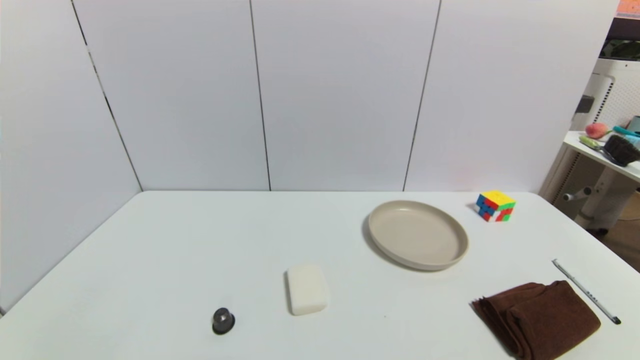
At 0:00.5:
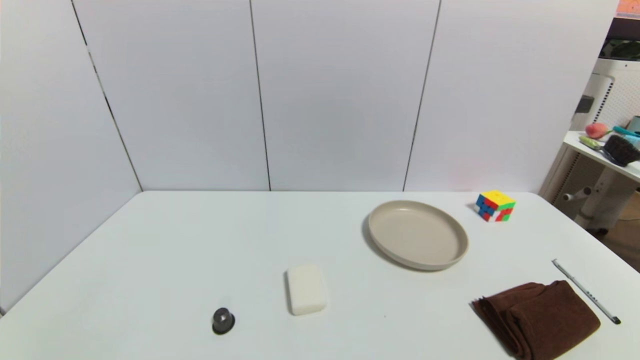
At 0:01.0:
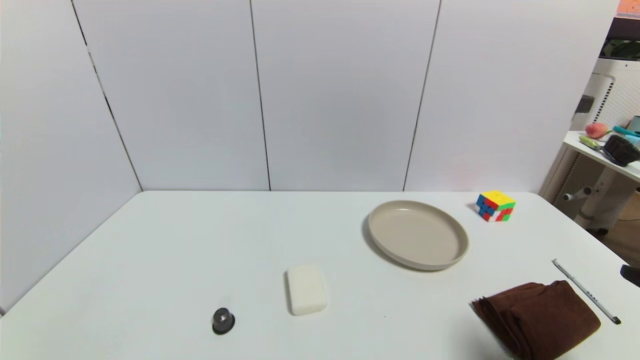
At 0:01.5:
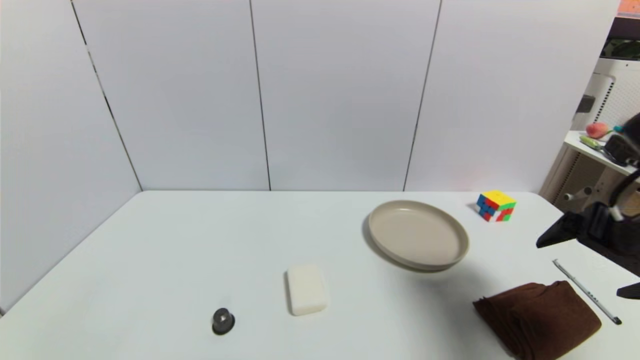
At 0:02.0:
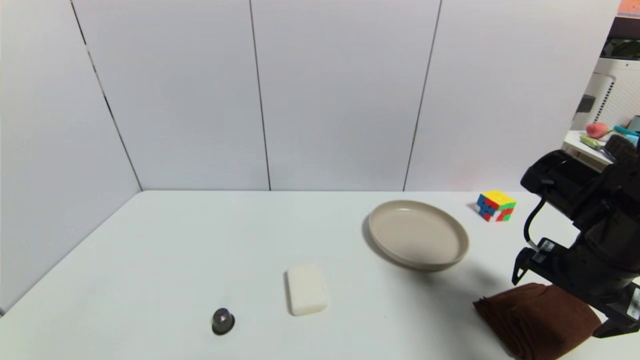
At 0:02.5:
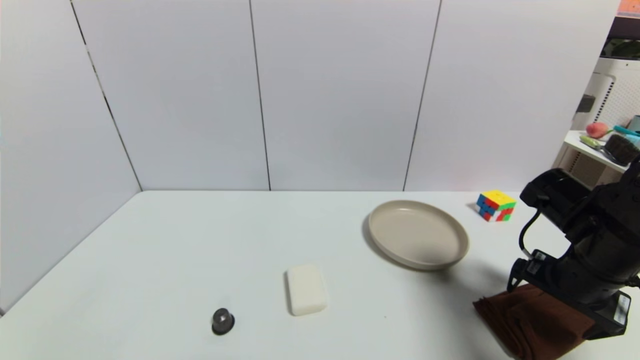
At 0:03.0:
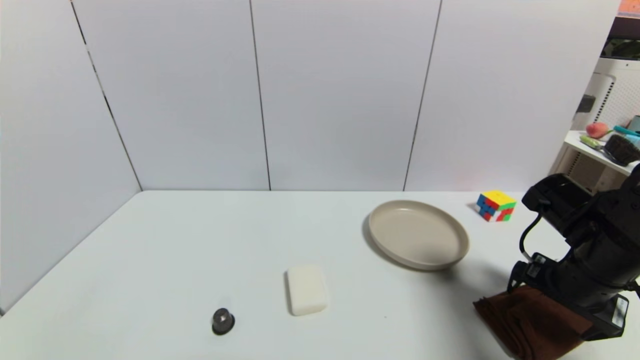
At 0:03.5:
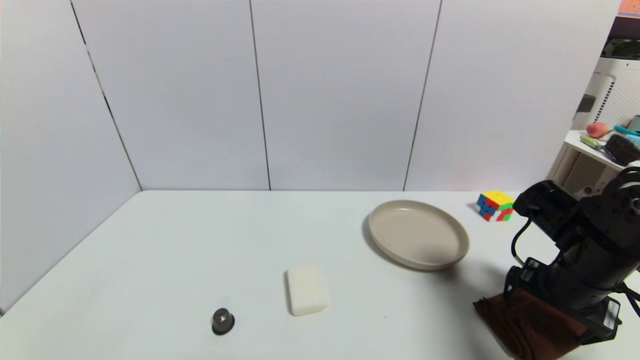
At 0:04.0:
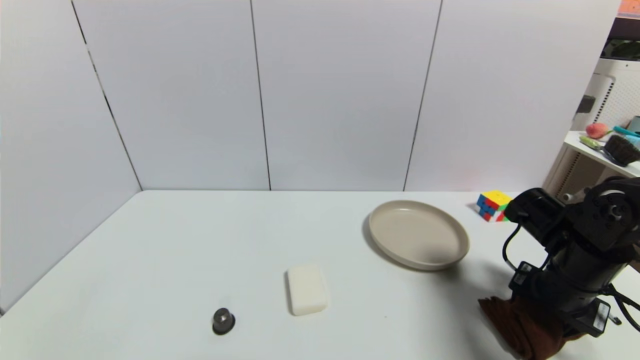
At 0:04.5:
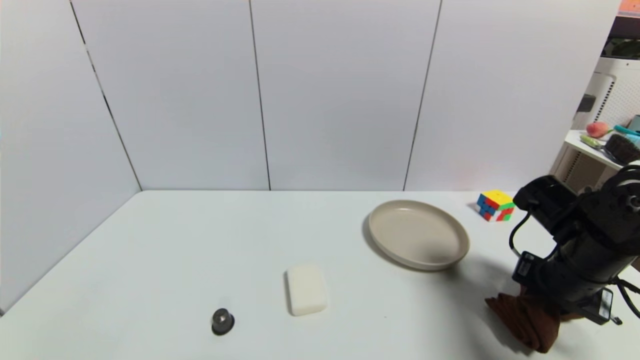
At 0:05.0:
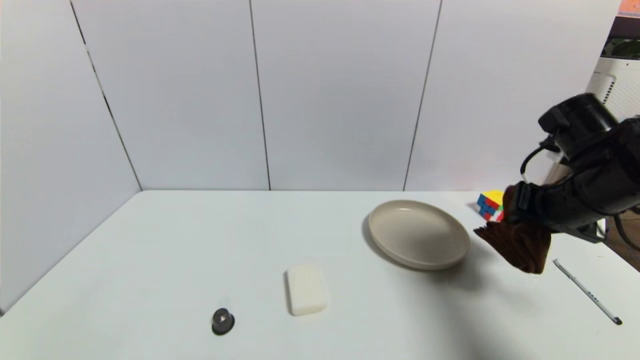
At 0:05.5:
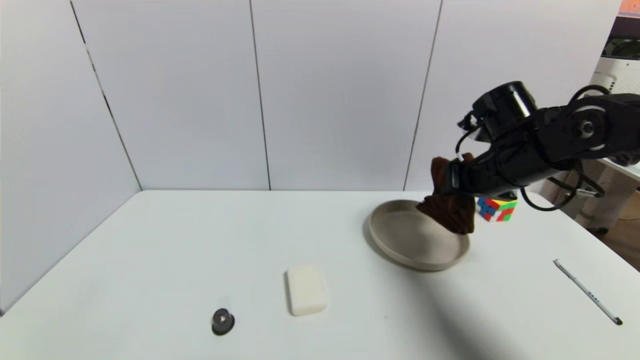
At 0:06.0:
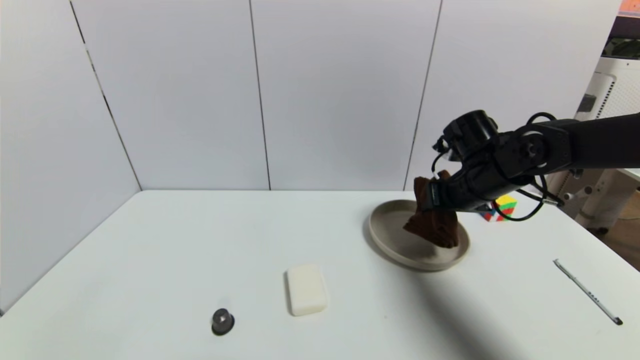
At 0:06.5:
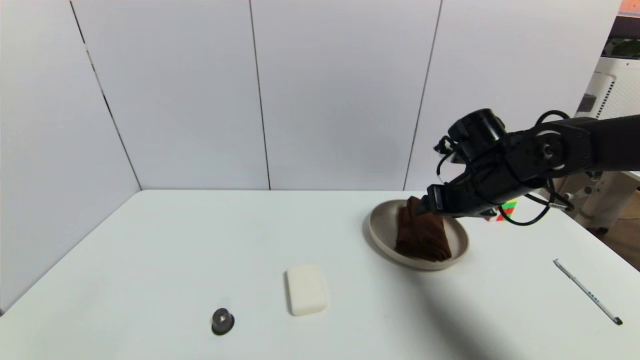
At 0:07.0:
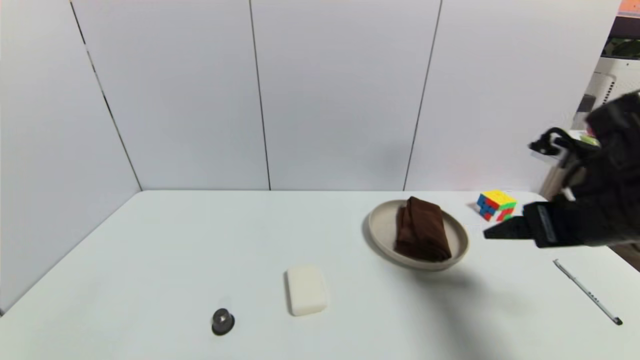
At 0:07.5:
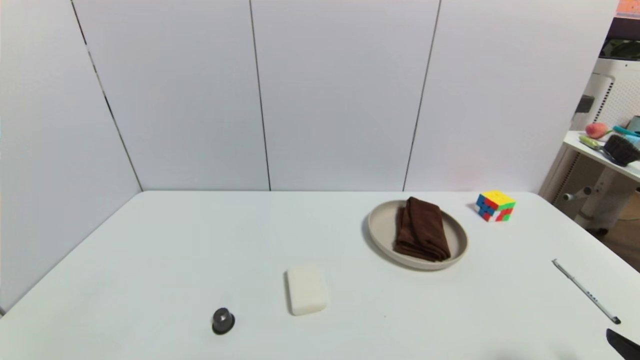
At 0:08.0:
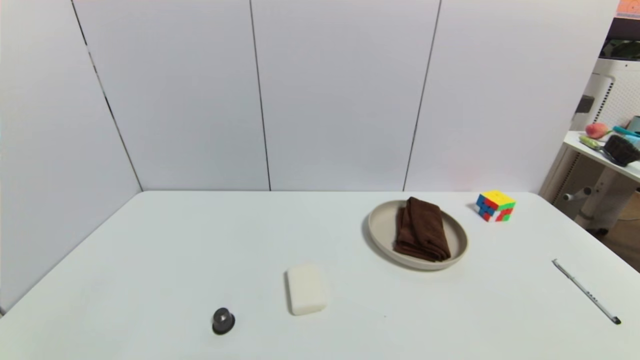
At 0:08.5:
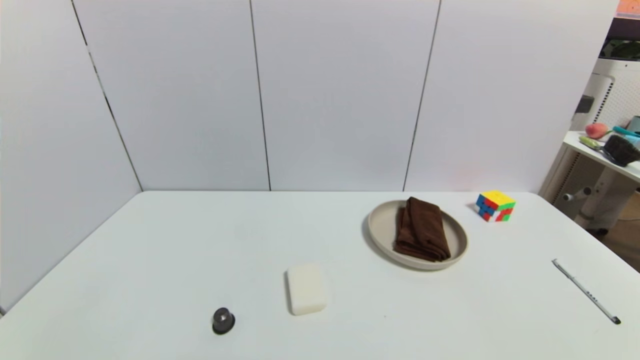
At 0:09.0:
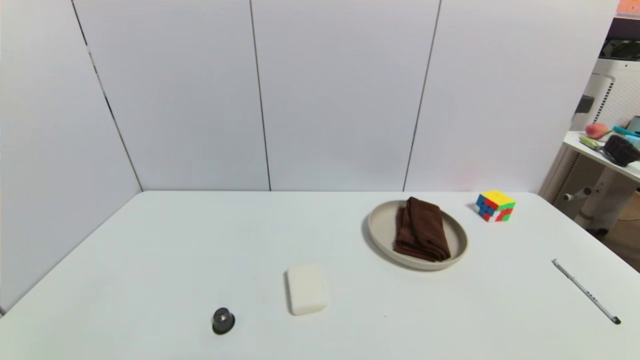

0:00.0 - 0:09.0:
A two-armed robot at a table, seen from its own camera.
Task of the whole recording: use a gripper to pick the target object and place on the brown plate.
Step, 0:00.0 - 0:04.5: Grasp the brown towel with the right gripper.
Step, 0:05.0 - 0:06.5: Place the brown towel on the brown plate with the right gripper.
0:00.0 - 0:02.0: The right gripper heads forward and upward, covering roughly 25 cm.
0:02.0 - 0:04.5: The right gripper ends up about 5 cm from where it was, and closes its fingers.
0:04.5 - 0:07.0: The right gripper is displaced upward by about 10 cm, travels forward and back again, roughly 10 cm each way, and opens.
0:07.0 - 0:09.0: The right gripper shifts approximately 30 cm backward and downward.
